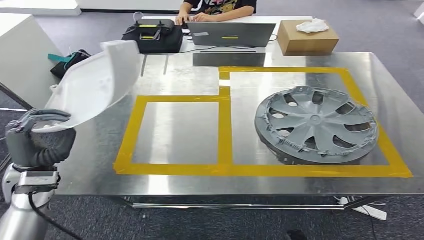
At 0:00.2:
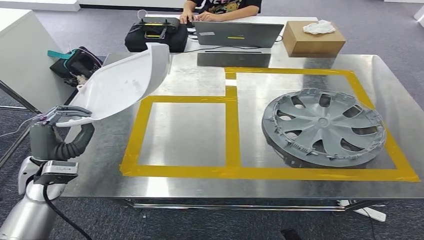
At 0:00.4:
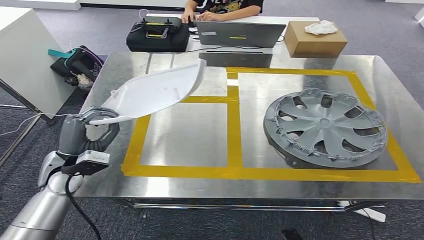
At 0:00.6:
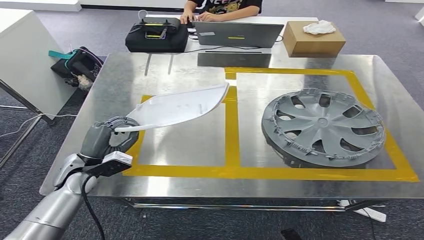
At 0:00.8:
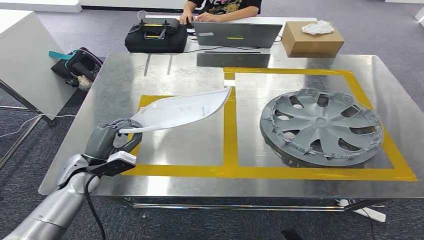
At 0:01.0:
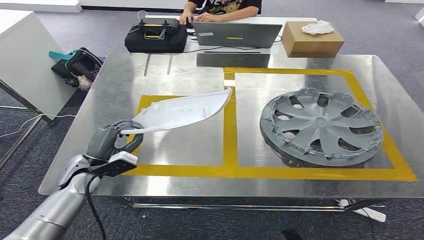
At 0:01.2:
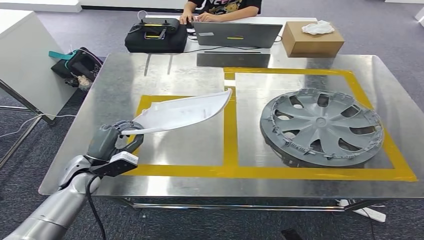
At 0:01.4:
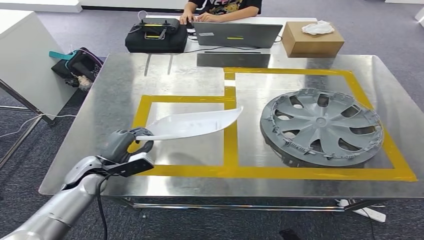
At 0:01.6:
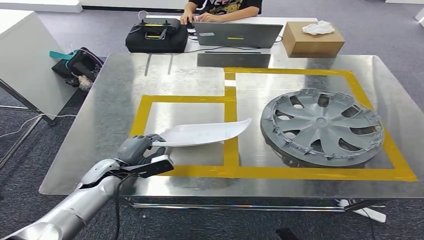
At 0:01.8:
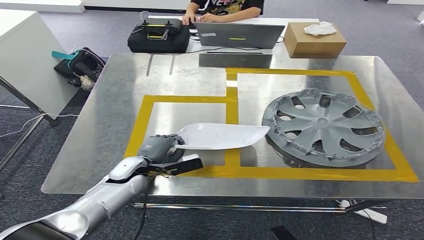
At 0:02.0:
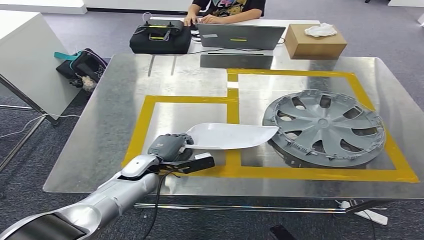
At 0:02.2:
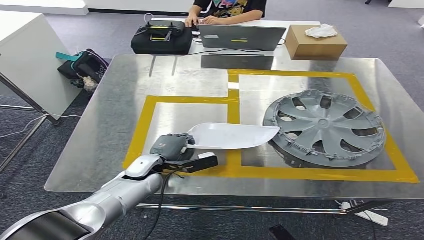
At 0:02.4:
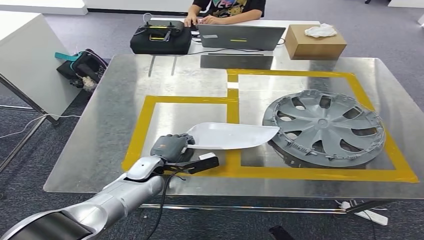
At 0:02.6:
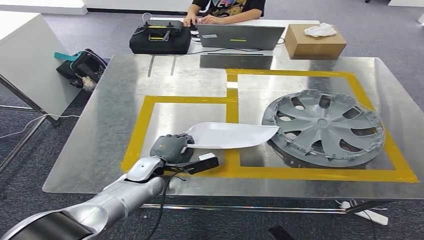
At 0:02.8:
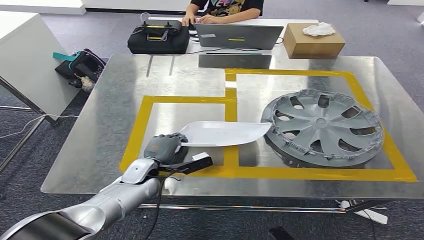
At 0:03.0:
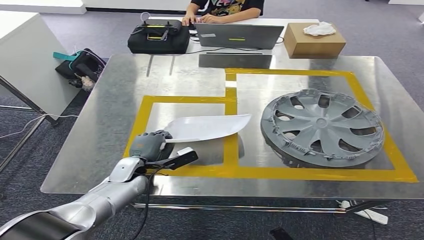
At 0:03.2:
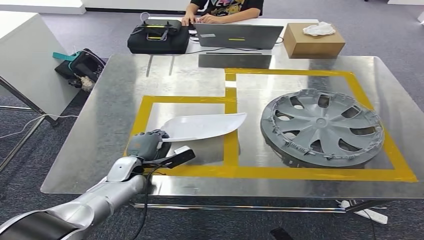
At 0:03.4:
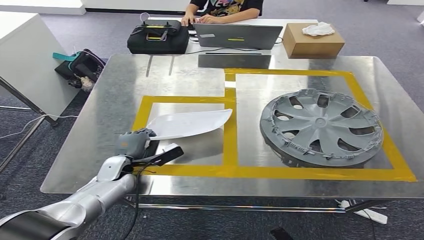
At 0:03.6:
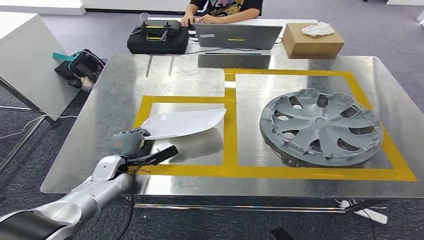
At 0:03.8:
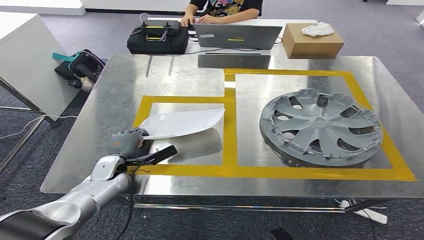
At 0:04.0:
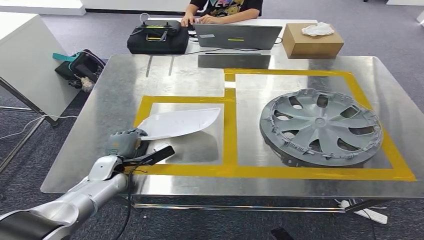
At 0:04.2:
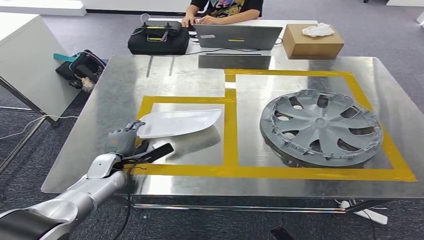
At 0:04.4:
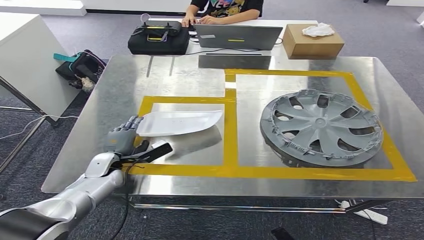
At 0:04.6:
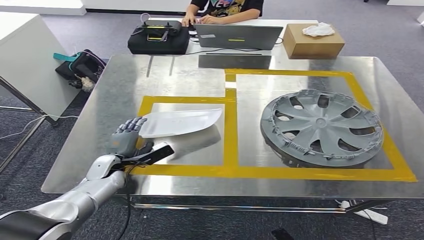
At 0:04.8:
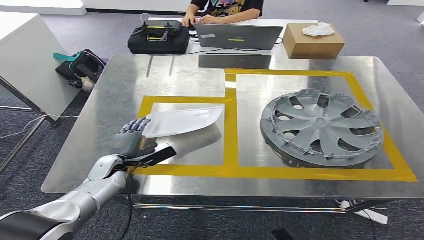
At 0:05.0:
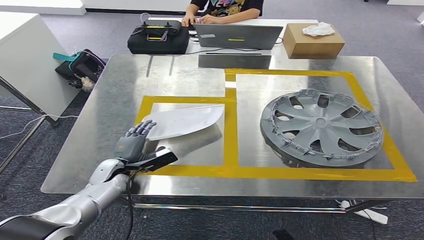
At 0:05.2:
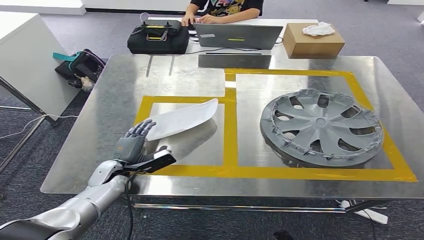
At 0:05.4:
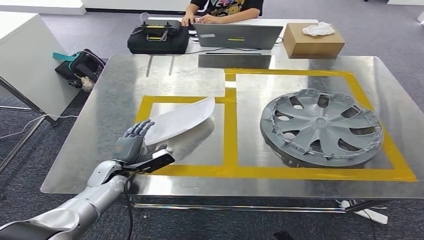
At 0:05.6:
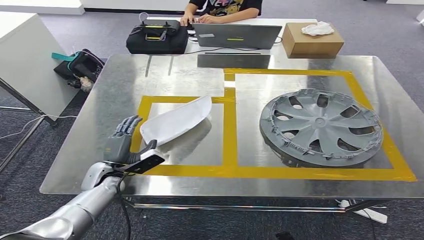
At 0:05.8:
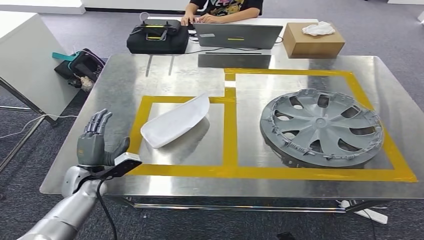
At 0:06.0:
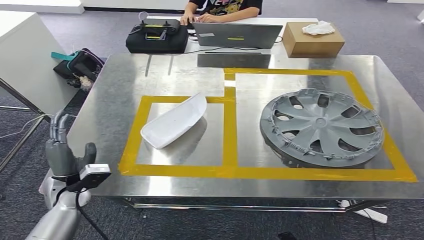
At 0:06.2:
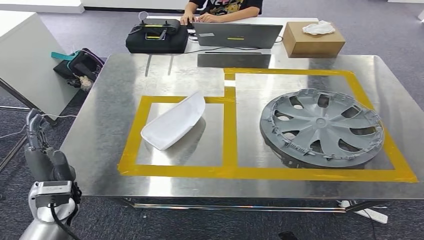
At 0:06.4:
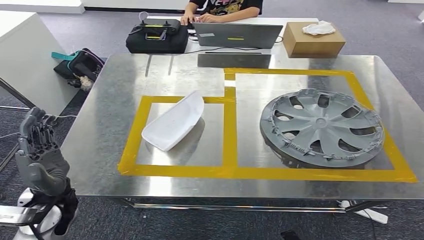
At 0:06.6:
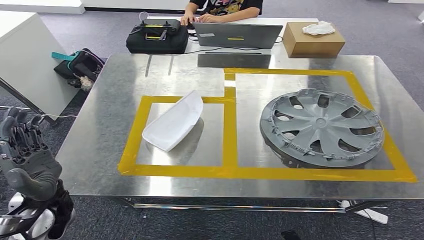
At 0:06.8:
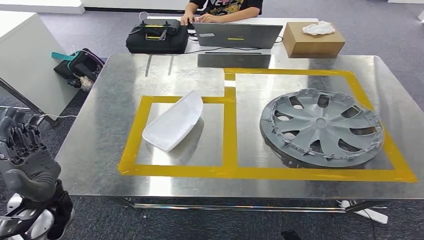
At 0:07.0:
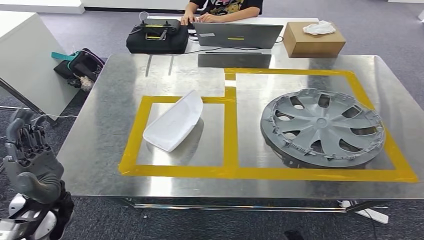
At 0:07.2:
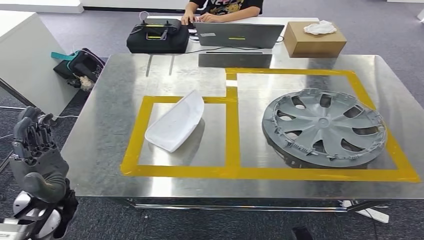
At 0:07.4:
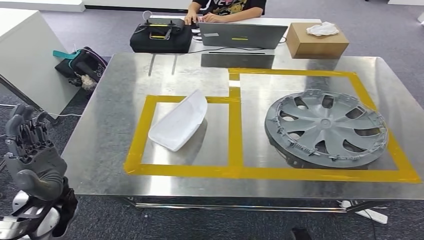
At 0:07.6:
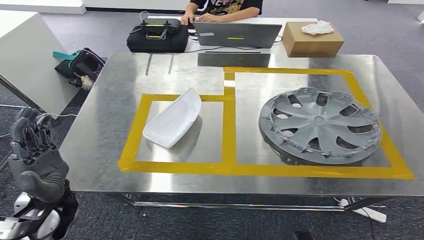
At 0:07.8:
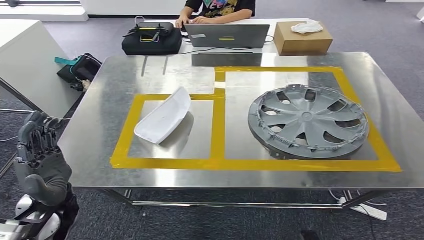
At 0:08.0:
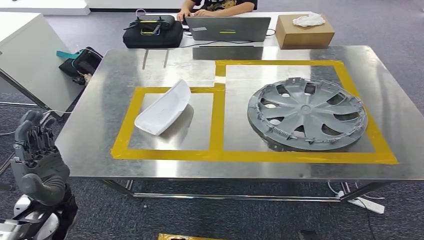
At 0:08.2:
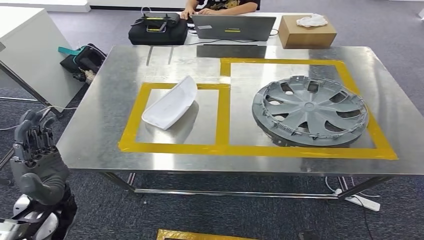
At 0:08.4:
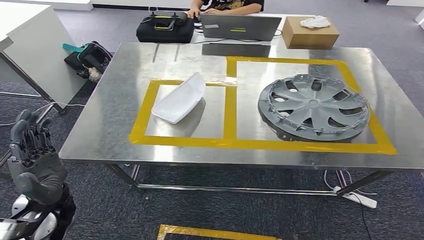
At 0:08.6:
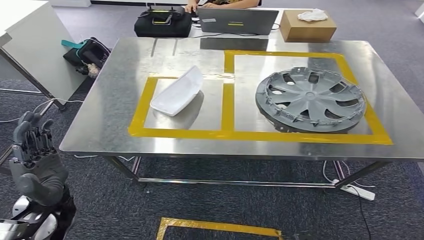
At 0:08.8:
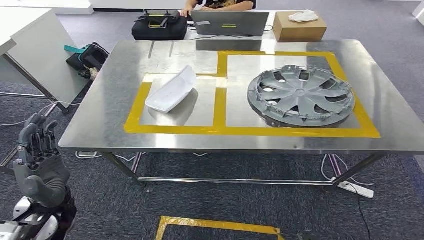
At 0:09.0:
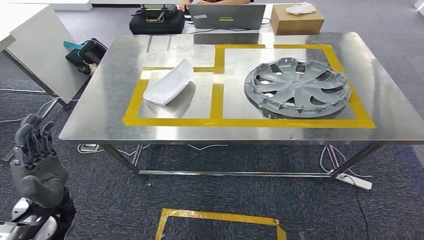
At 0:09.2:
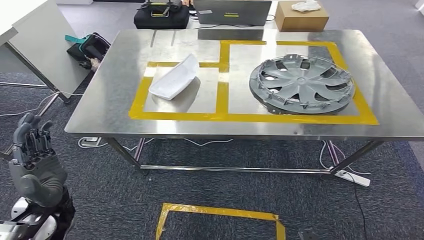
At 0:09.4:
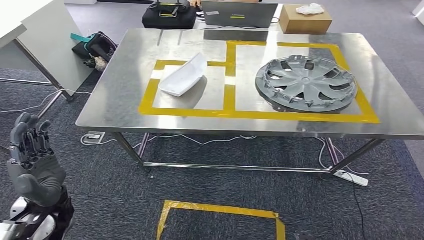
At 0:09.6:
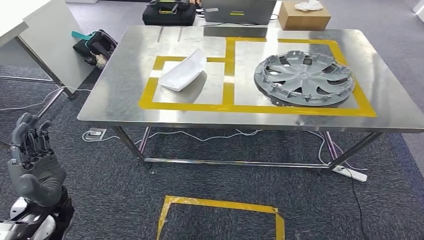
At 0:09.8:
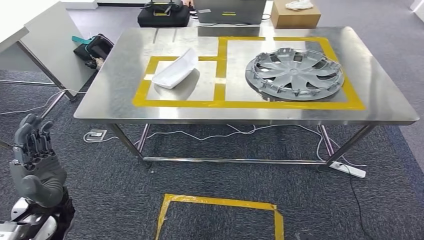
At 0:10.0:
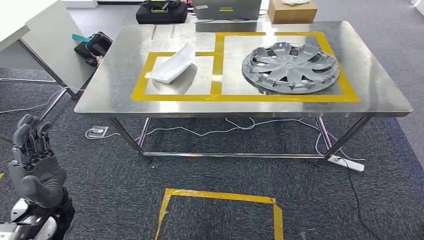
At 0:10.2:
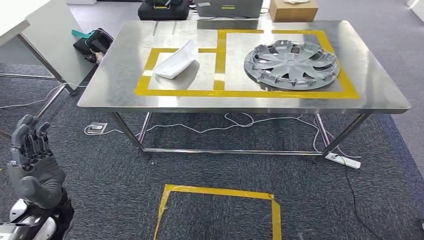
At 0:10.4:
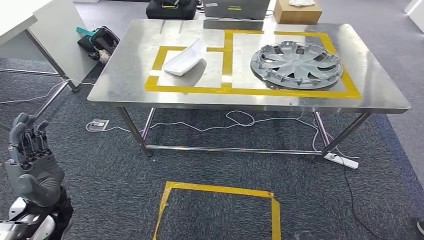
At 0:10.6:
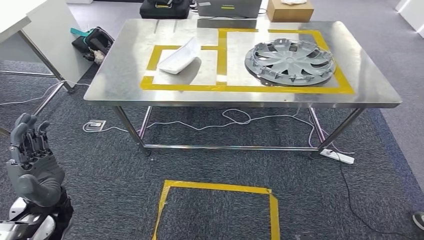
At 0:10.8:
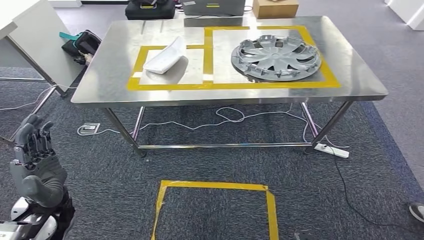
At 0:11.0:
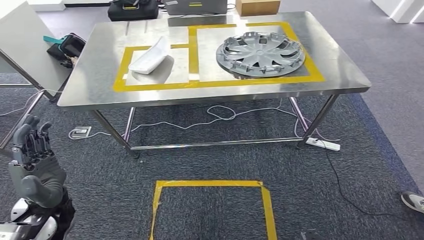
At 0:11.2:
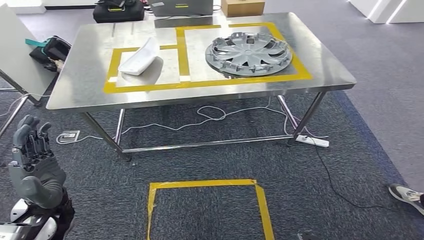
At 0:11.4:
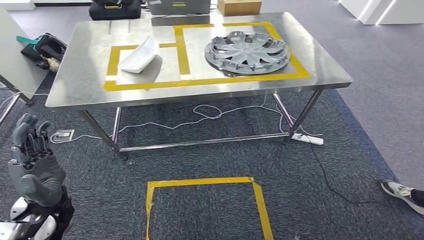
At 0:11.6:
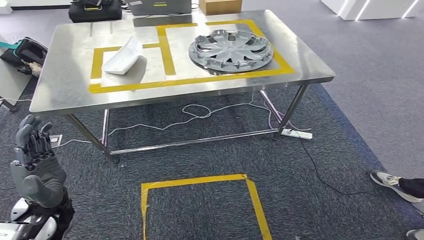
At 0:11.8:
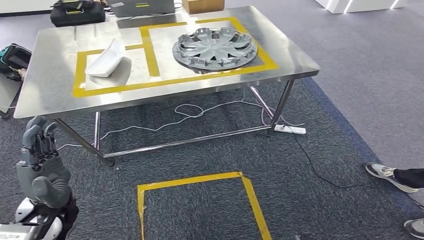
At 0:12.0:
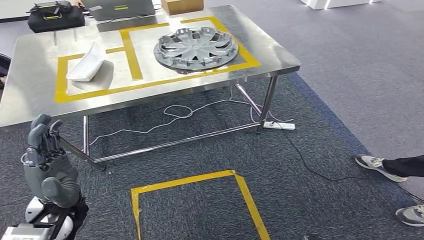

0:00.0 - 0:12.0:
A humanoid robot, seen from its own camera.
Step, 0:00.0 - 0:07.8: Insert the small parts into the corresponding holes on the workbench.
0:03.0 - 0:04.4: The left hand heads to the left, covering roughly 5 cm.
0:04.4 - 0:06.0: The left hand travels backward by roughly 10 cm.
0:06.0 - 0:07.6: The left hand is displaced upward and backward by approximately 10 cm.

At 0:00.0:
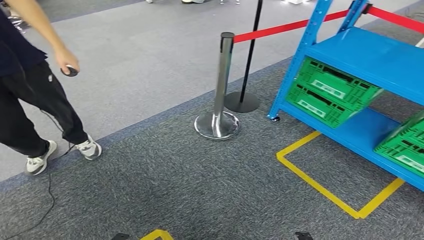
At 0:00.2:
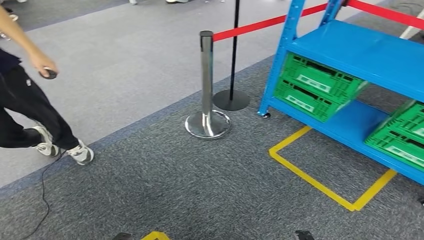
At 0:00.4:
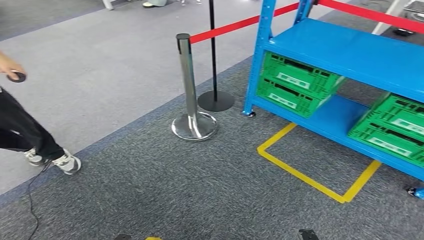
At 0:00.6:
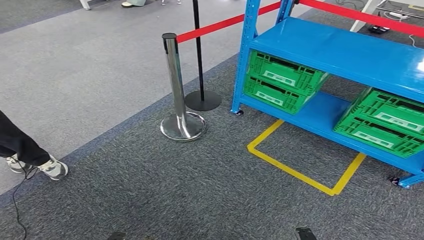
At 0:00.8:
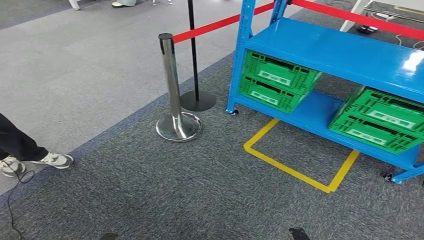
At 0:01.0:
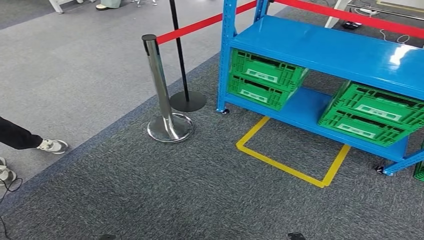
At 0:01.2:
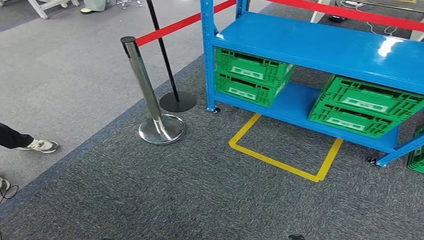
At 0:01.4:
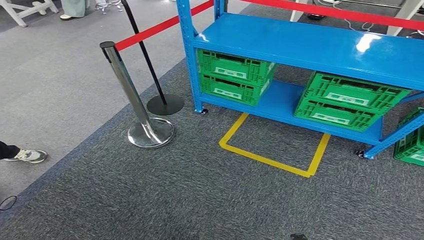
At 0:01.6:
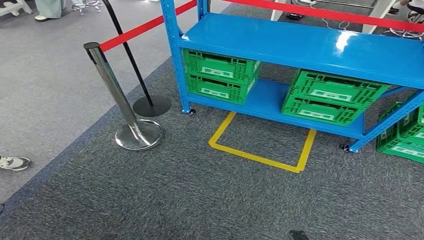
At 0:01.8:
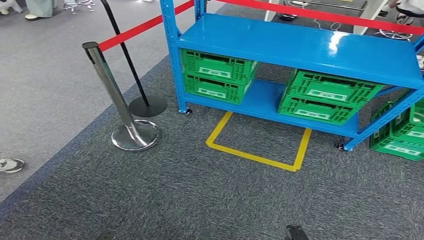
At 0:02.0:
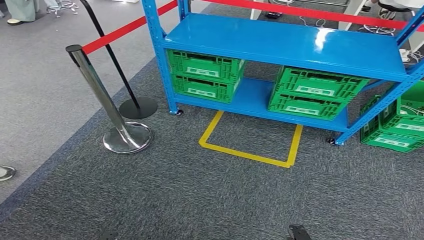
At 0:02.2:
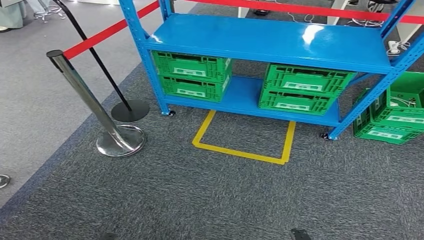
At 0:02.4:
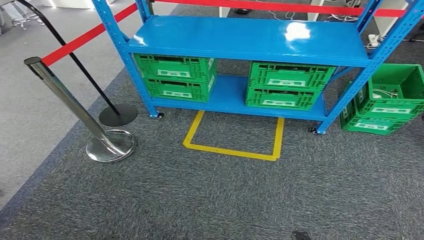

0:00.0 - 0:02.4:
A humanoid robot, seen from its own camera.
Step, 0:00.0 - 0:02.4: Move to the initial position of the workbench.

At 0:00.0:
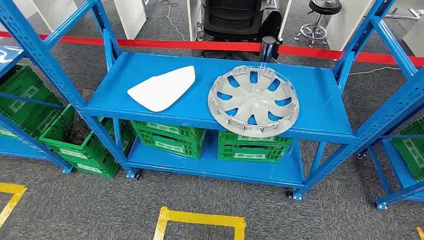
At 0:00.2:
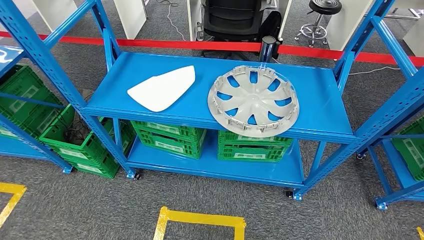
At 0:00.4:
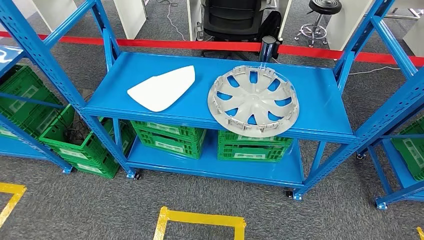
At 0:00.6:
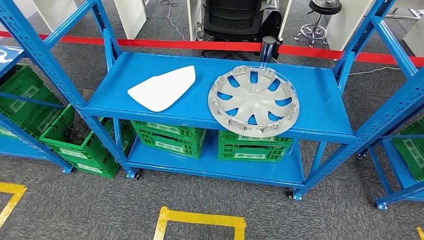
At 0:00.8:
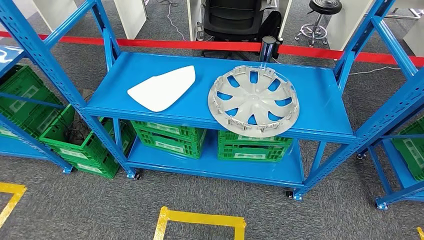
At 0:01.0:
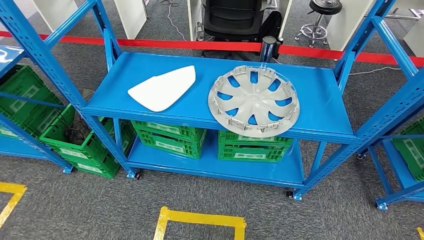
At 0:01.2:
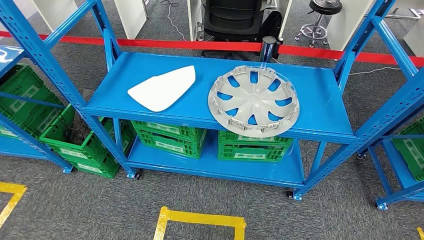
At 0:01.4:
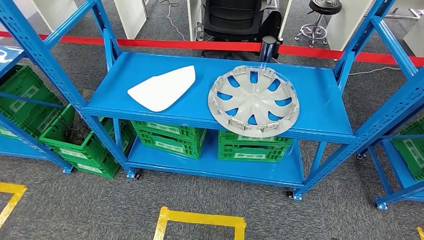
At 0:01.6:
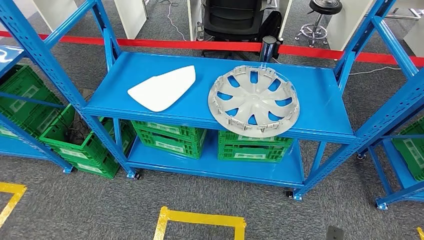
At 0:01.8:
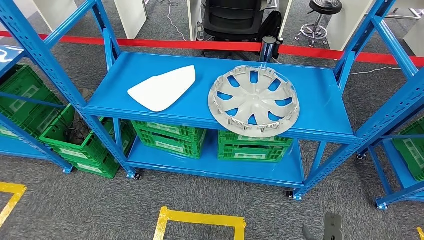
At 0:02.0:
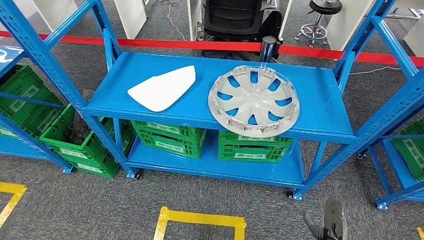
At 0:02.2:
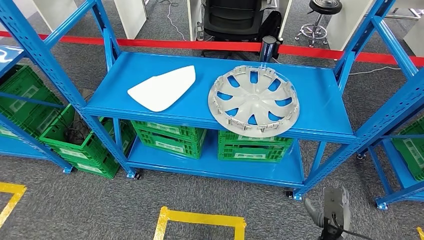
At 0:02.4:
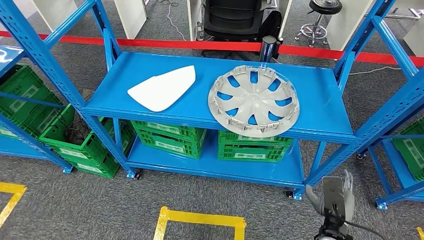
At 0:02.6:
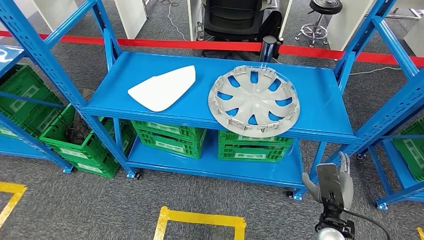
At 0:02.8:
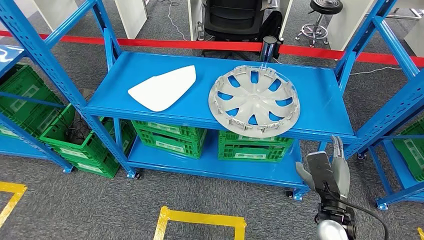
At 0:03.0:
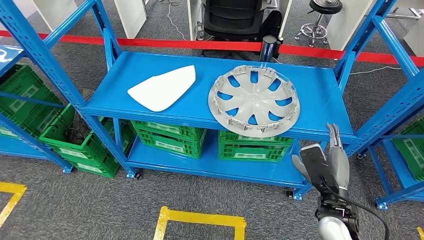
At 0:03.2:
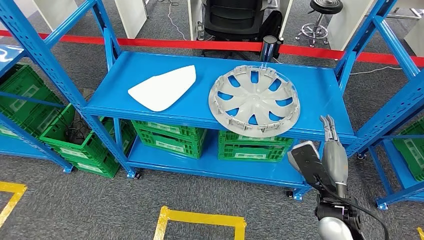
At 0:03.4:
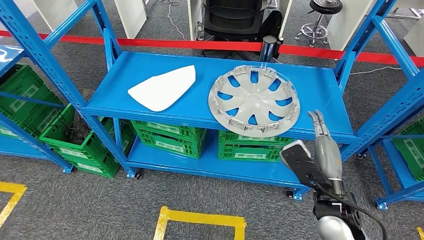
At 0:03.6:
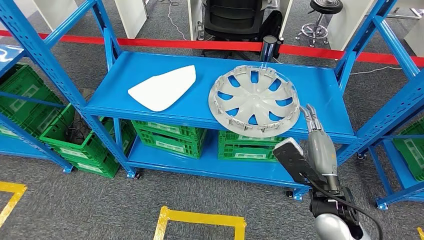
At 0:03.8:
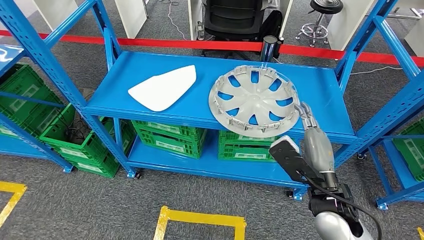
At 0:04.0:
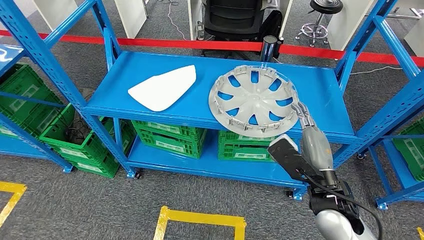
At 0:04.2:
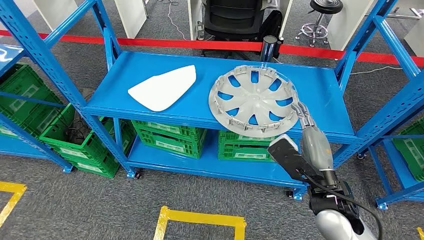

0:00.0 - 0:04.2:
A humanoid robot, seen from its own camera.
0:01.4 - 0:02.8: The right hand goes some 25 cm upward and forward.
0:02.8 - 0:04.2: The right hand travels upward by roughly 10 cm.
